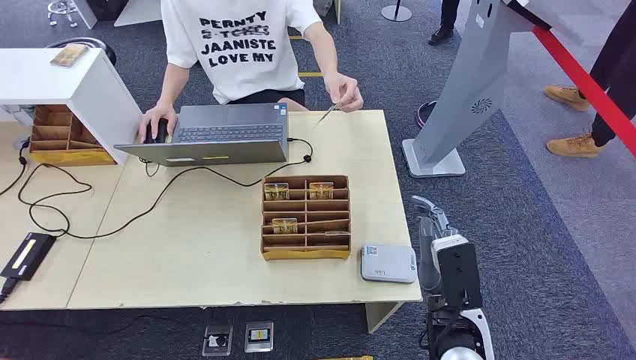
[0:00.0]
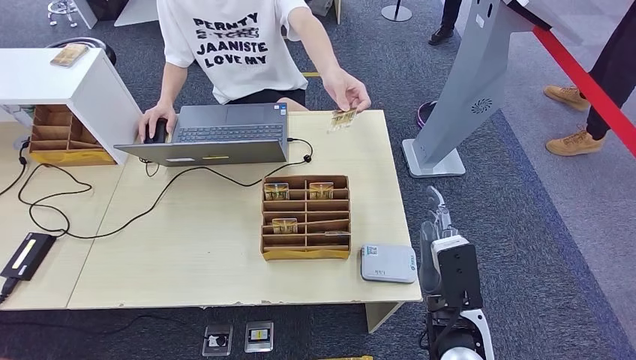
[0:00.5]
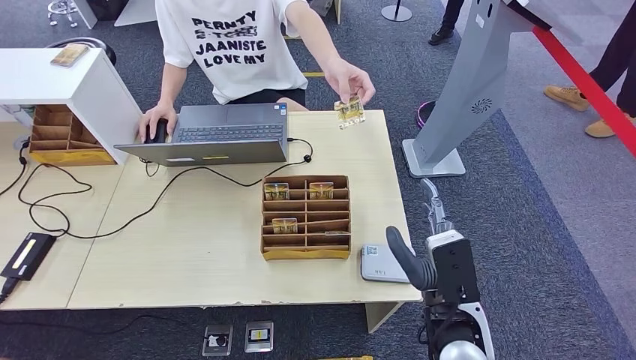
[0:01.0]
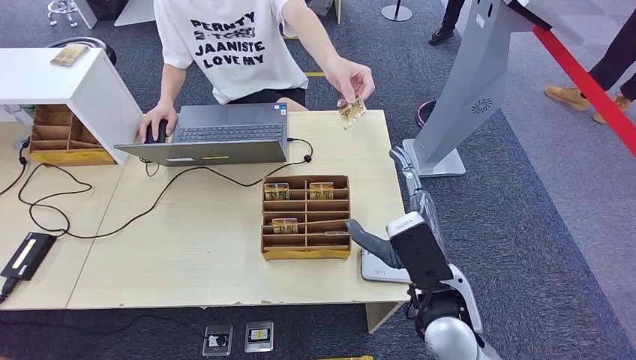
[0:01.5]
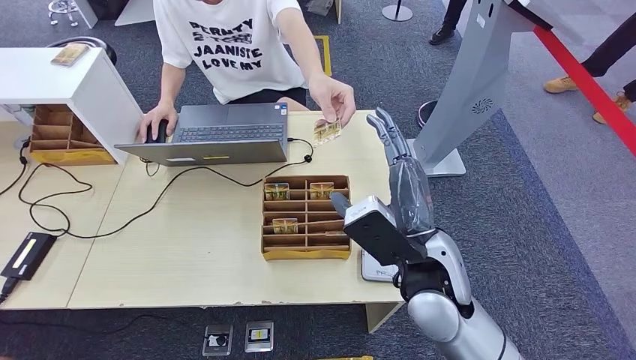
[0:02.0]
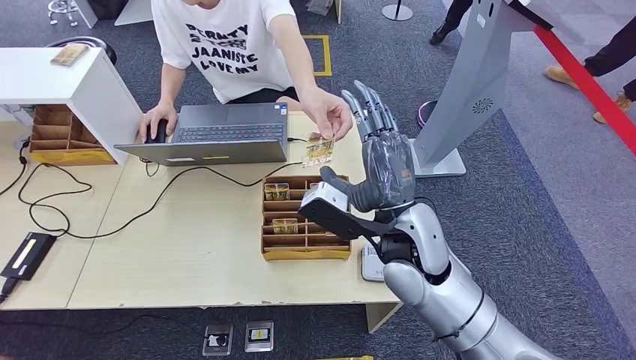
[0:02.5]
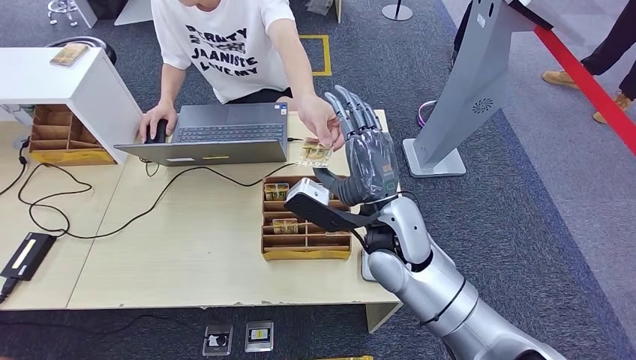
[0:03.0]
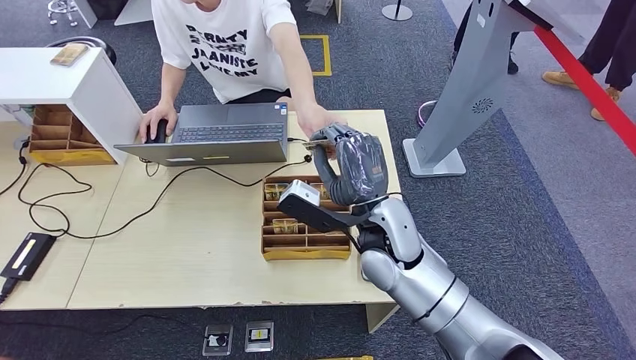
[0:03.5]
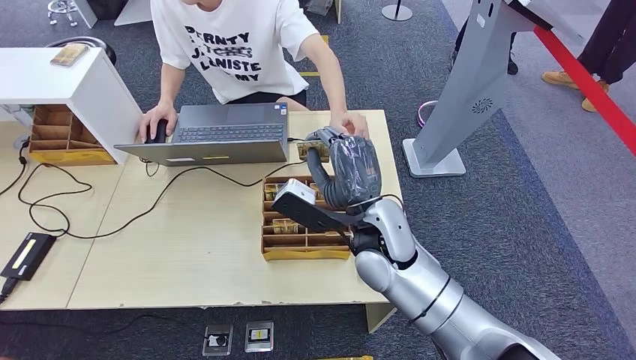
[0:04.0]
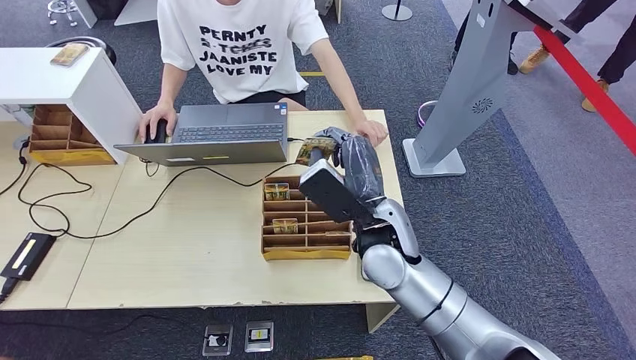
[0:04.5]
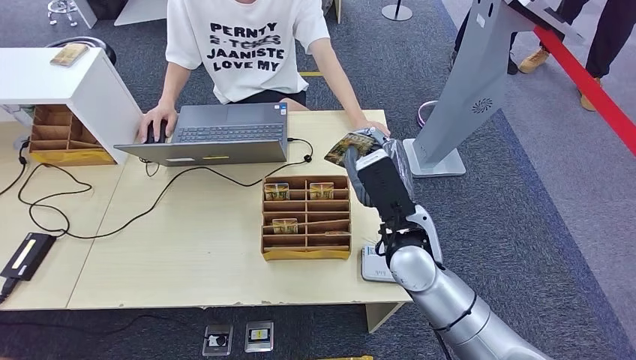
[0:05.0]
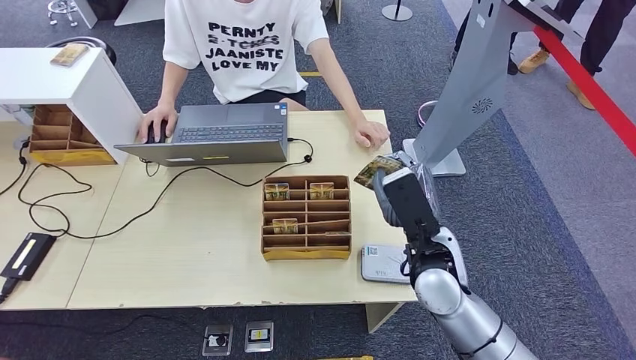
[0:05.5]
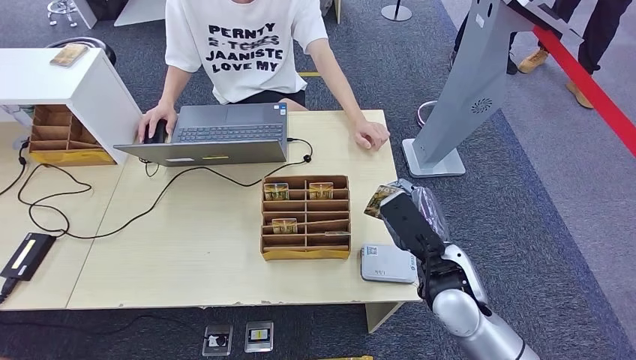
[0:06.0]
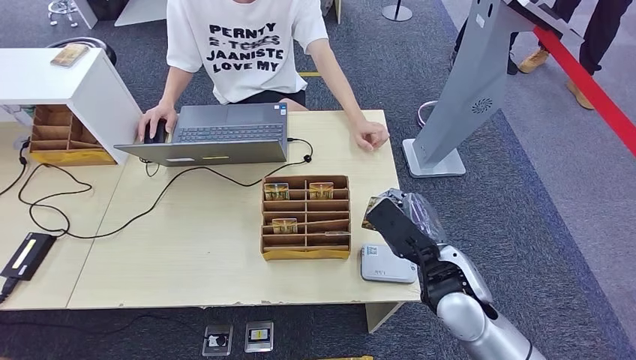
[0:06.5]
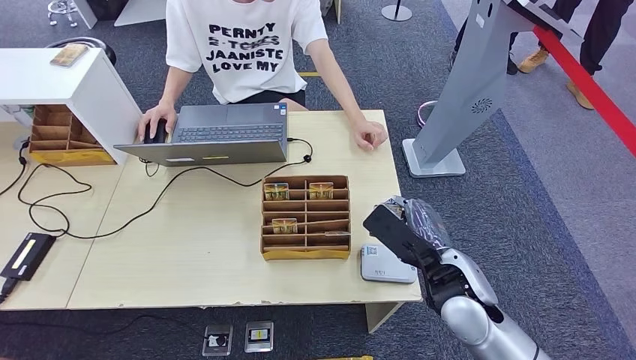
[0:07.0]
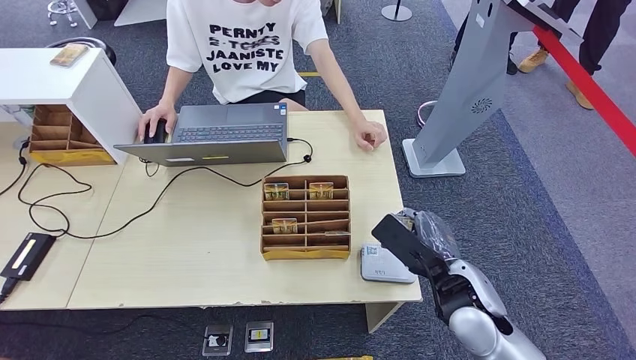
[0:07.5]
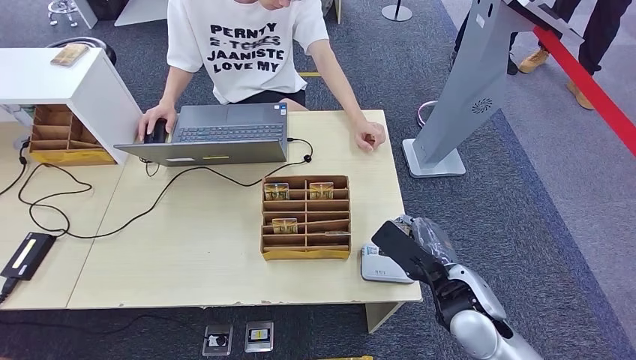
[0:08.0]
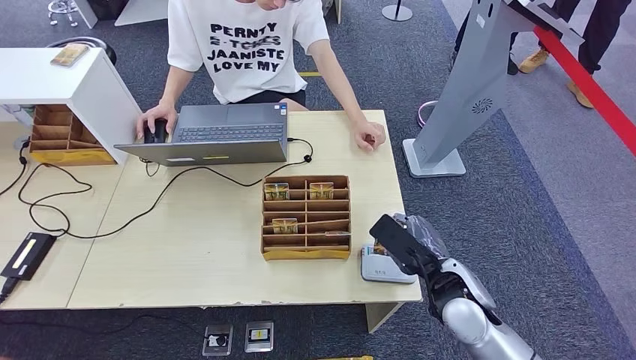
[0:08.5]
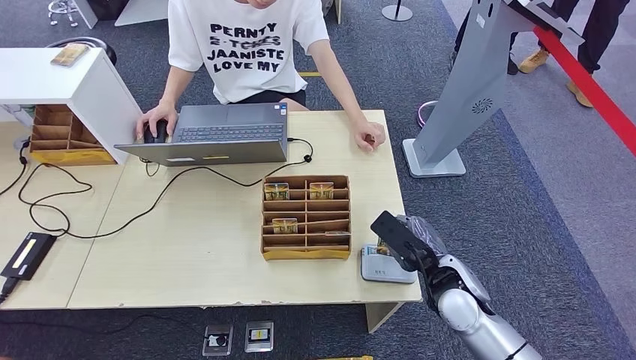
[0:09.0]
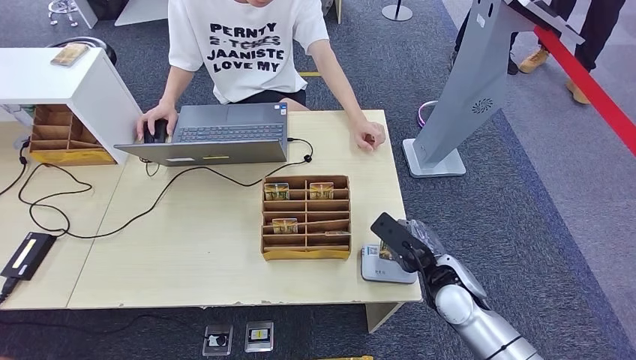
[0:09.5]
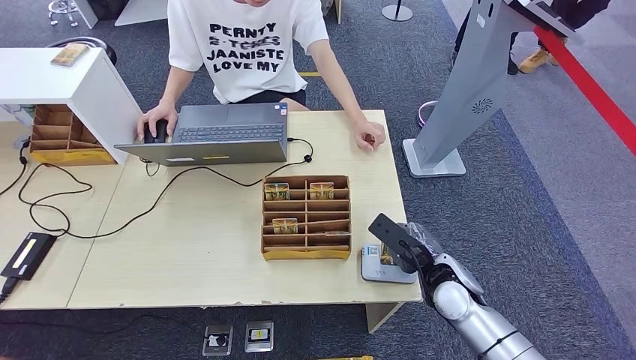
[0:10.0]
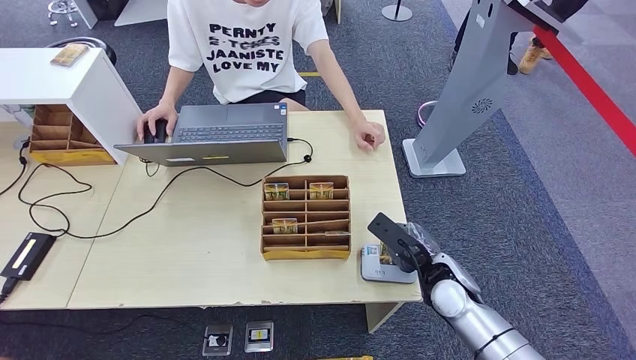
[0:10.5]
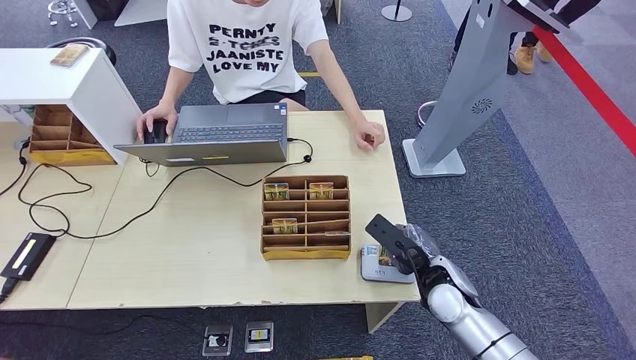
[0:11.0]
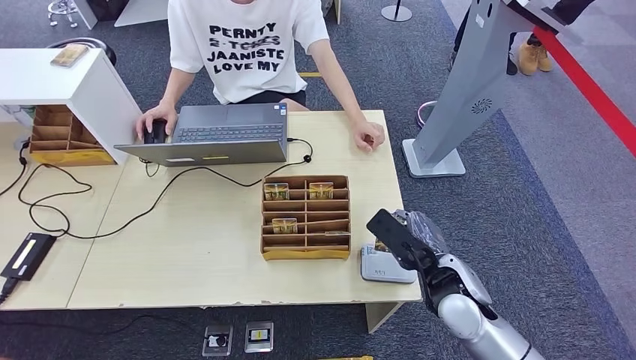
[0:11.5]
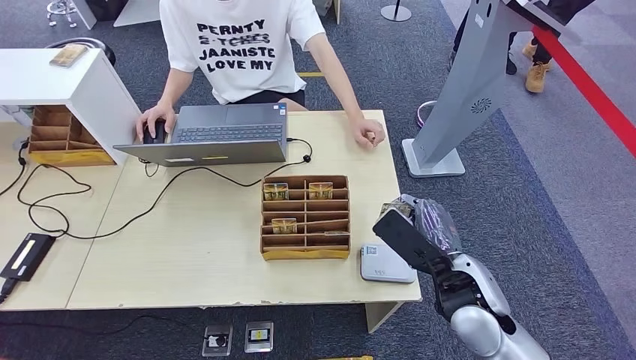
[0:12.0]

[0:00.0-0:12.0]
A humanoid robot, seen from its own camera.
Step, 0:00.0 to 0:04.5: Take the ID card from the person's hand.
Step, 0:05.0 to 0:09.5: Place the ID card on the card reader.
0:02.0 to 0:04.0: The right hand travels forward and to the left by approximately 10 cm.
0:04.0 to 0:06.0: The right hand is displaced to the right and backward by some 15 cm.
0:08.0 to 0:10.0: The right hand goes some 10 cm downward and forward.
0:10.0 to 0:12.0: The right hand is displaced upward by approximately 10 cm.

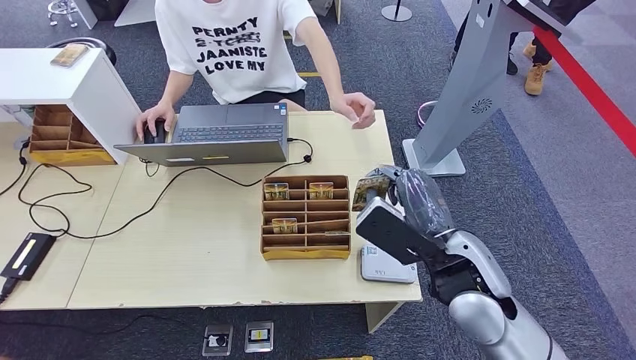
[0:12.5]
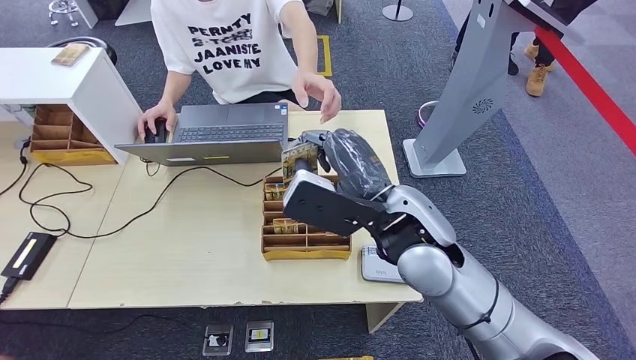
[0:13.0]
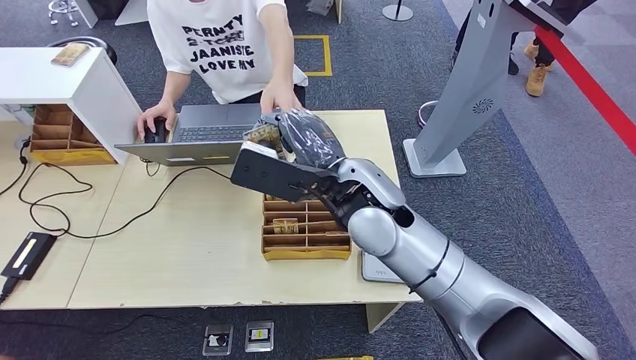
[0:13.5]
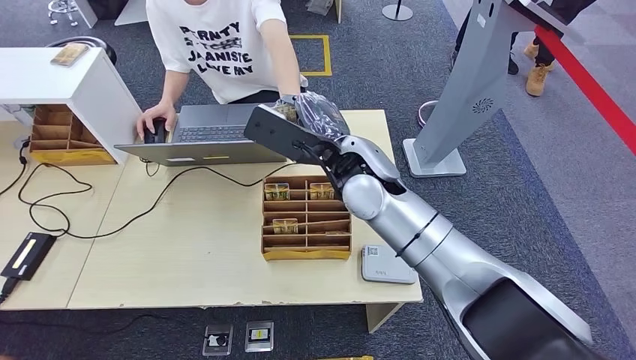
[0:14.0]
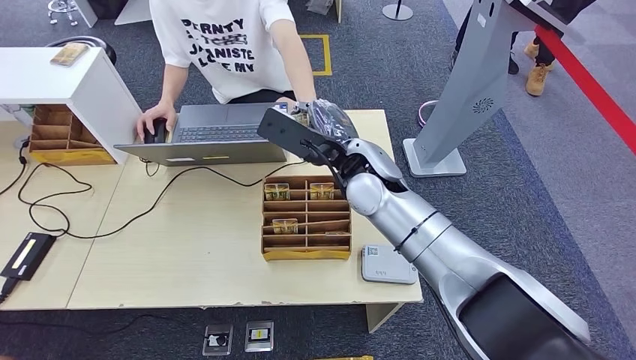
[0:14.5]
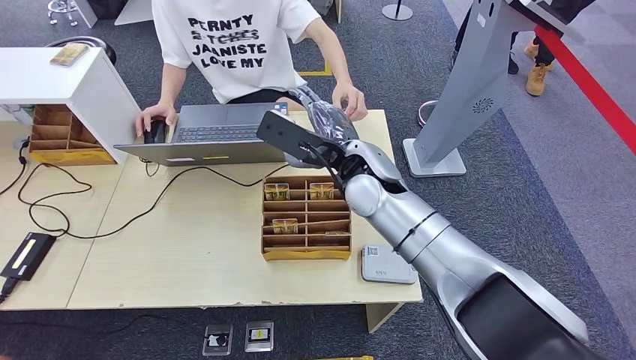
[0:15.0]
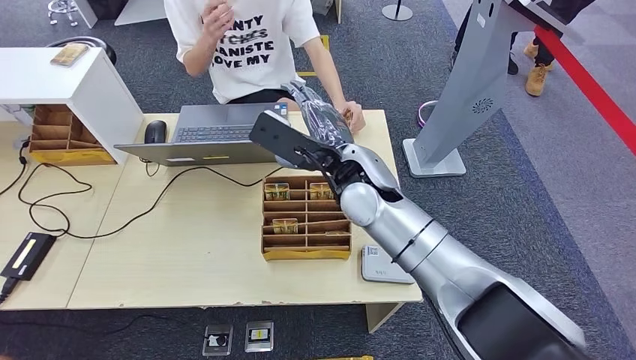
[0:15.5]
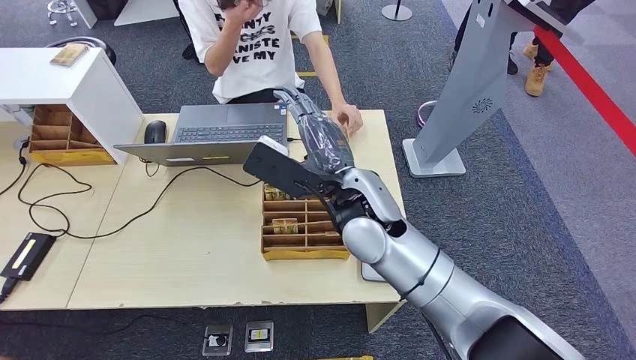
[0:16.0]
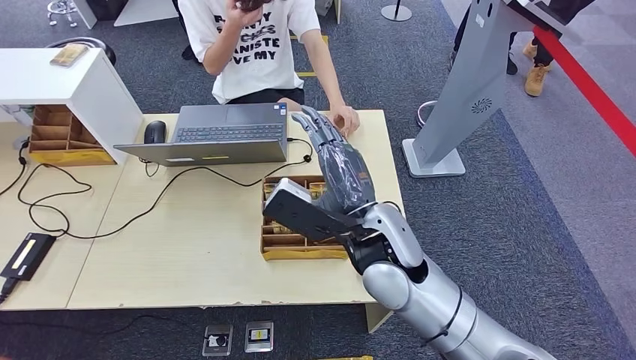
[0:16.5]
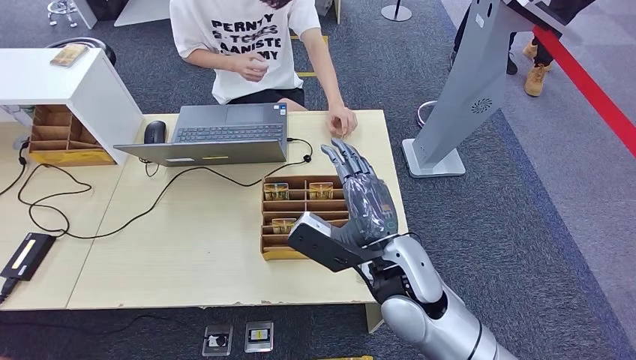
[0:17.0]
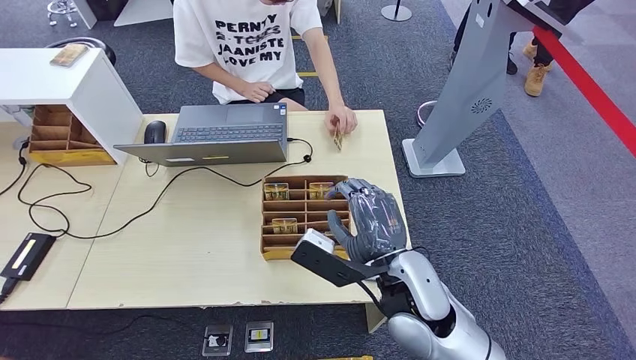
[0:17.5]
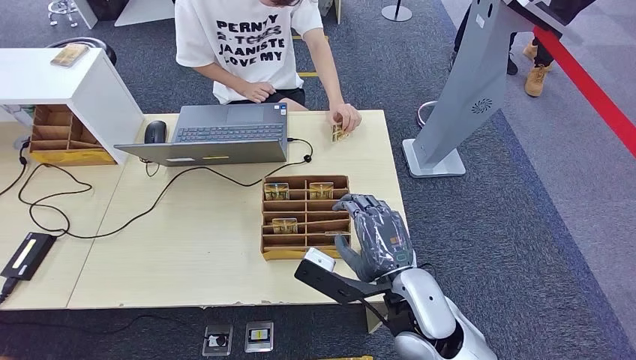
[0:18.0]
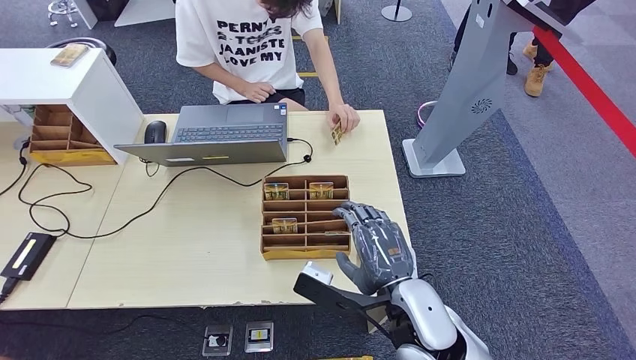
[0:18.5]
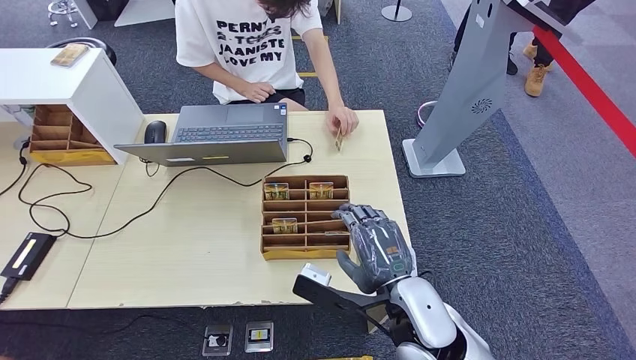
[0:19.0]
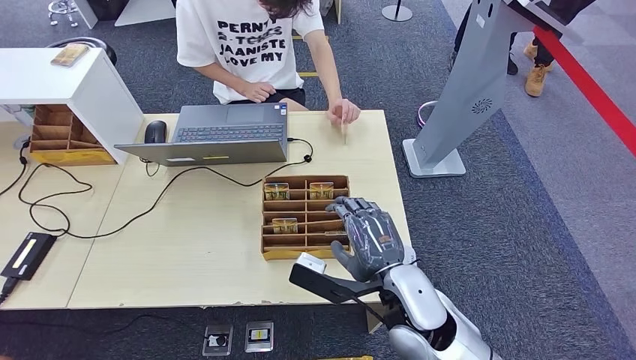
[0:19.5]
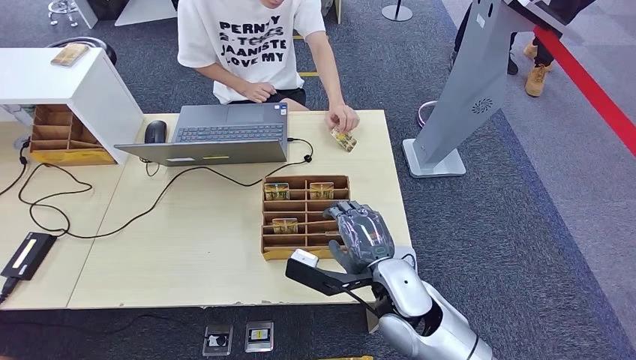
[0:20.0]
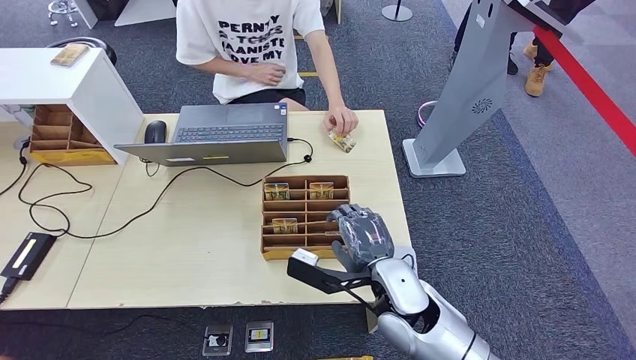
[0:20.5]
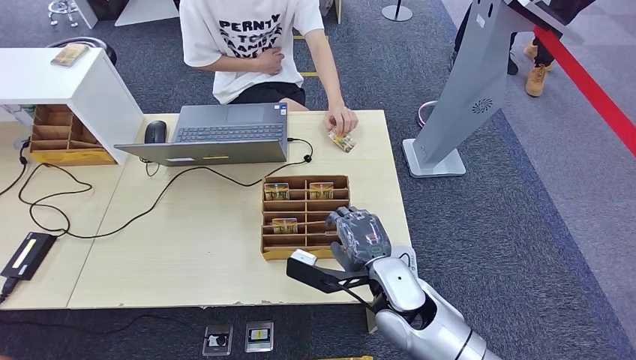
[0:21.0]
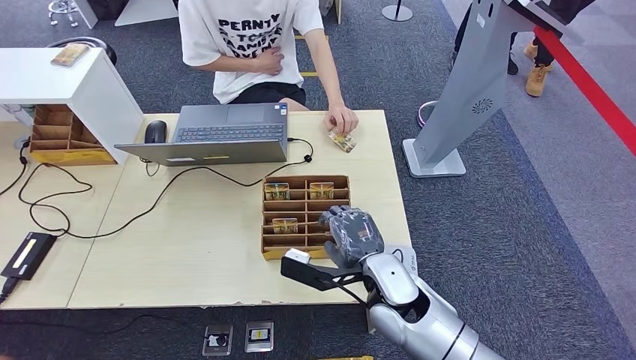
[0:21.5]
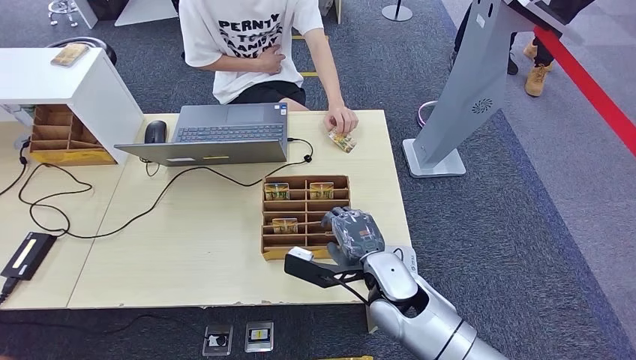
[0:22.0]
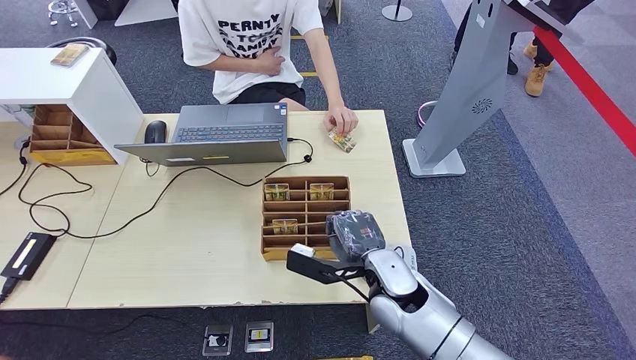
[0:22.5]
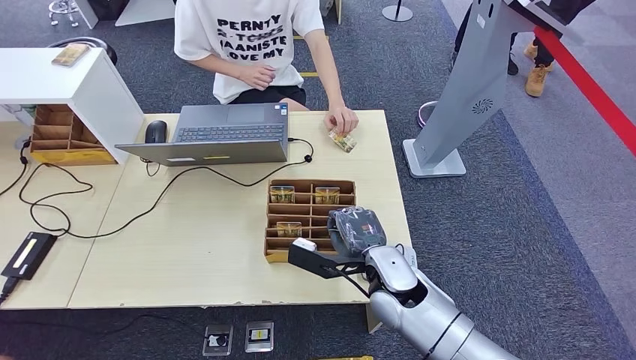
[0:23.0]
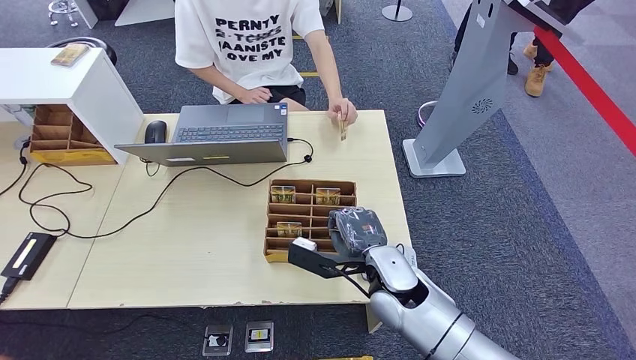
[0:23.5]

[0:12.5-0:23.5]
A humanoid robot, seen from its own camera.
Step, 0:12.5 to 0:14.5: Hand the ID card to the person.
0:12.5 to 0:14.5: The right hand is displaced forward and to the left by approximately 20 cm.
0:14.5 to 0:16.0: The right hand is displaced backward by about 5 cm.
0:16.0 to 0:18.0: The right hand moves backward, downward and to the right, some 15 cm.
0:18.0 to 0:20.0: There are only small adjustments of the hands.
0:20.0 to 0:23.5: The hands move only a little.
